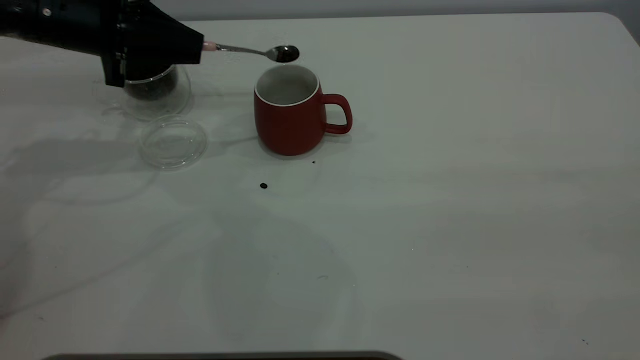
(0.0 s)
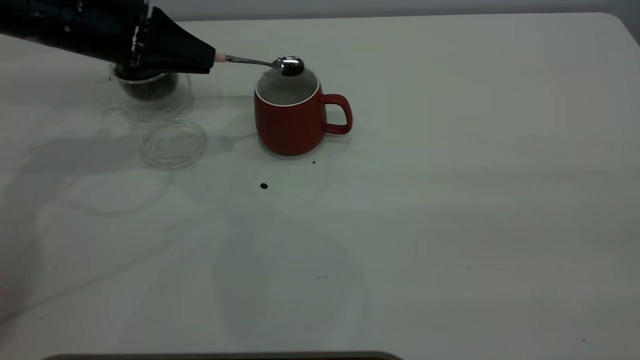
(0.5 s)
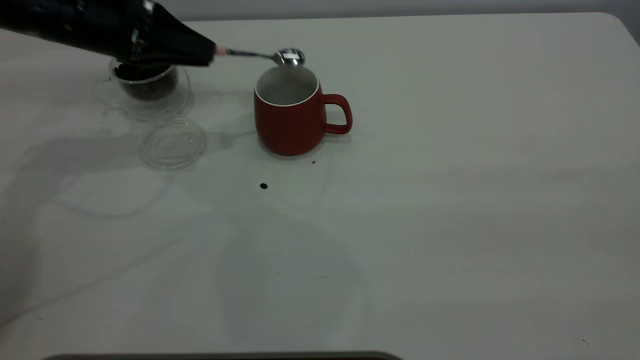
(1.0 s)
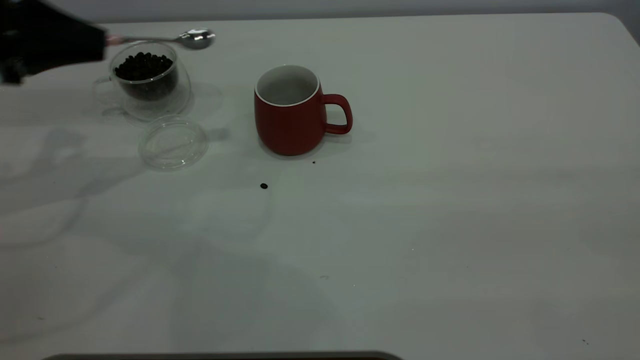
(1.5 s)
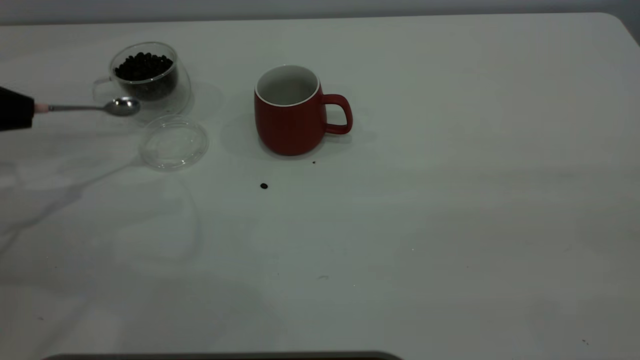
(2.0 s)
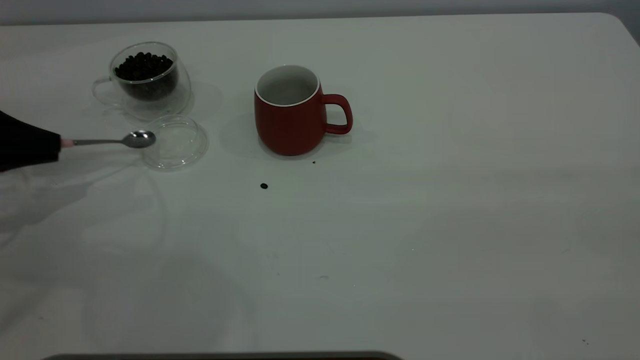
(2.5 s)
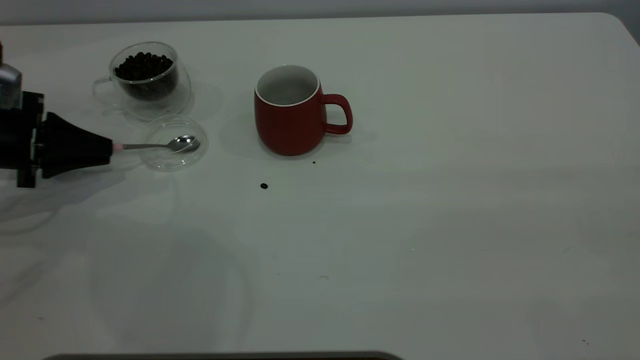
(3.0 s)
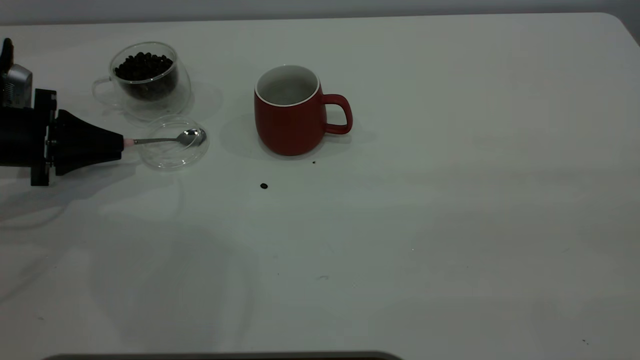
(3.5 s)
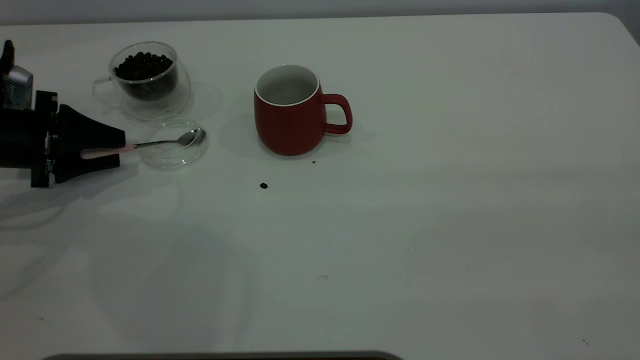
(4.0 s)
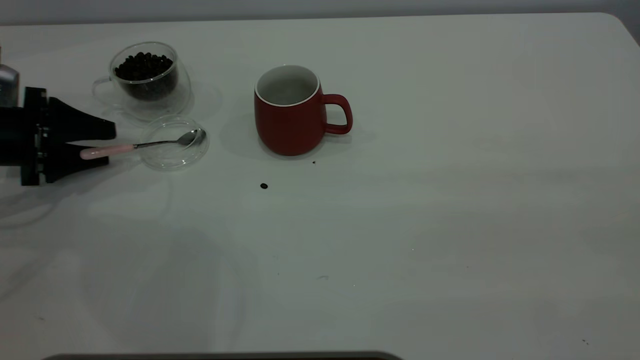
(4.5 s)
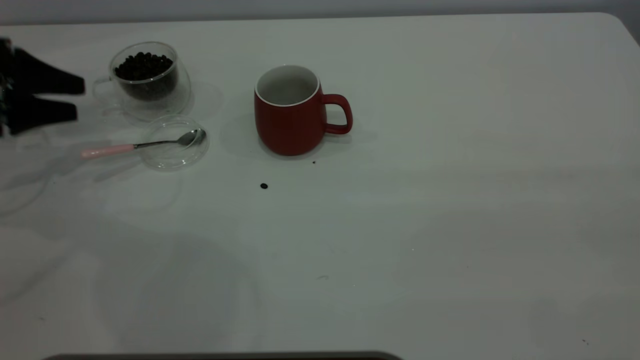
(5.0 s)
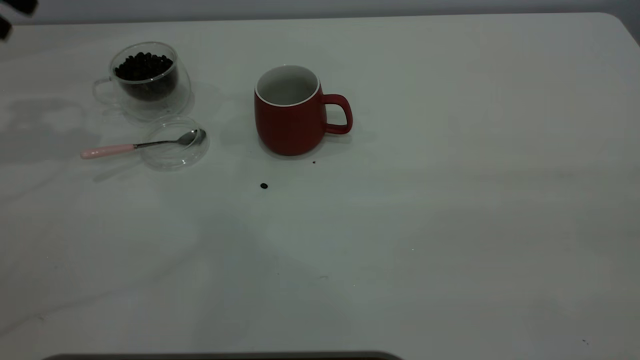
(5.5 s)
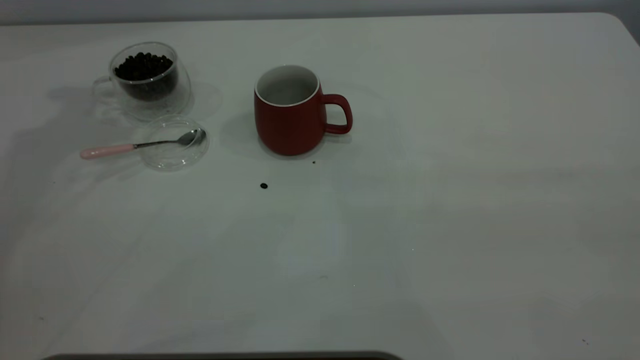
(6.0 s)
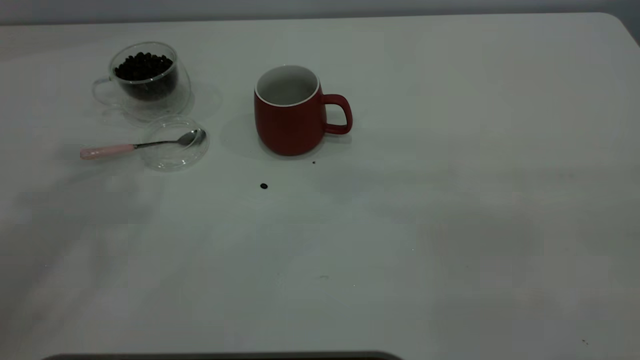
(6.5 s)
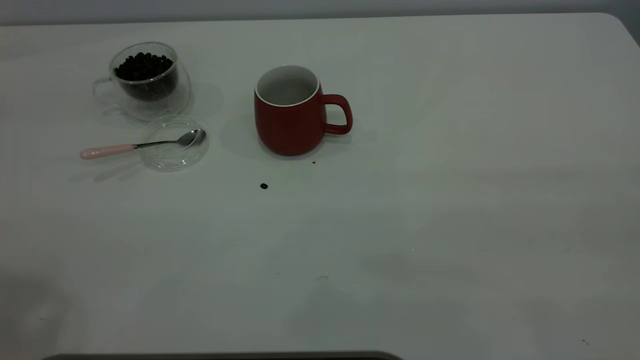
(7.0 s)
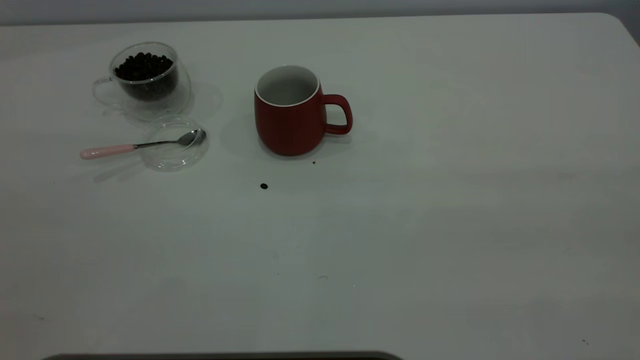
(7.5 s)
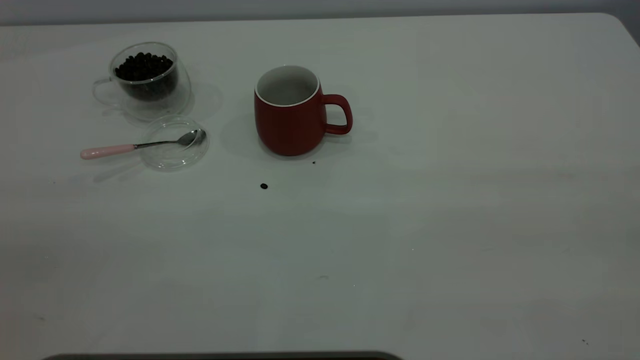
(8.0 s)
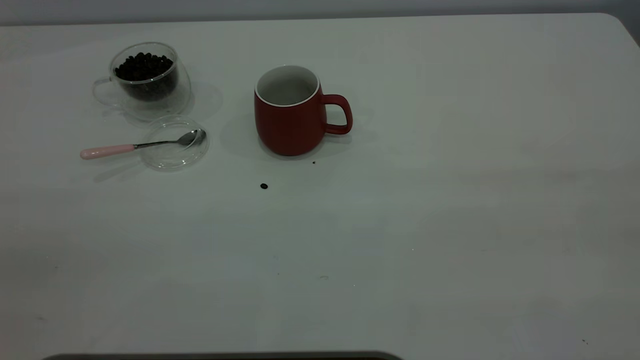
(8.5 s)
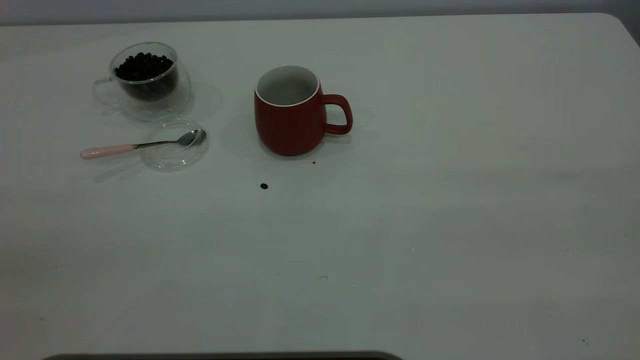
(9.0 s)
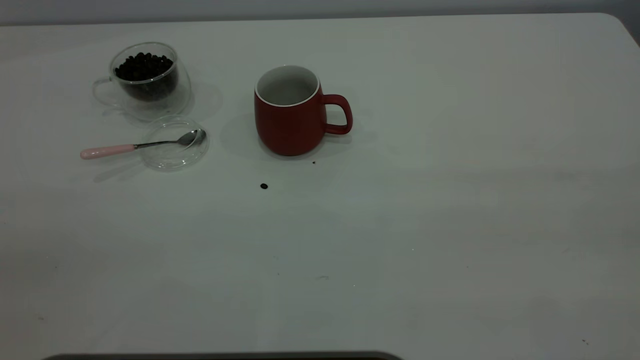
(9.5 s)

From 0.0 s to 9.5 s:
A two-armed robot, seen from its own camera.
Task of the whole recording: the right gripper place the red cup in the center of the table, the left gripper take the pink spoon from the cup lid and scoop out the coffee beans from the coffee cup and put them into the red cup, the left gripper put the spoon back into the cup lid.
Step, from 1.5 s to 5.0 s: Place the spoon back in its original place.
From 0.0 s to 2.0 s: The left gripper heads to the left and backward, covering about 20 cm.
From 2.0 s to 4.0 s: The left gripper goes some 10 cm downward, and opens its fingers.
From 4.0 s to 5.5 s: The left gripper goes some 25 cm upward.

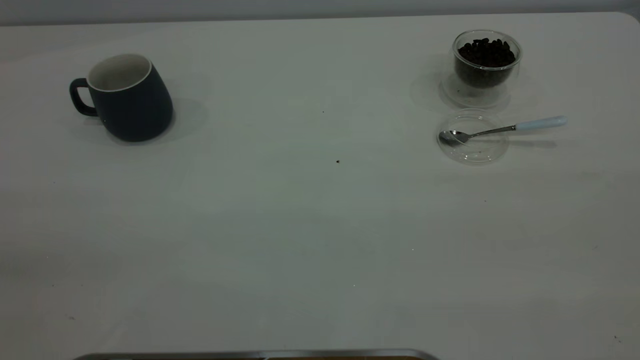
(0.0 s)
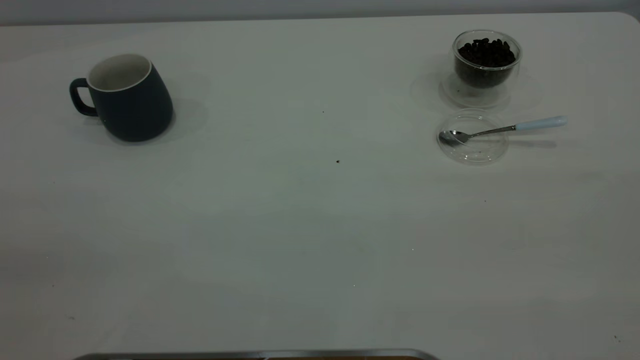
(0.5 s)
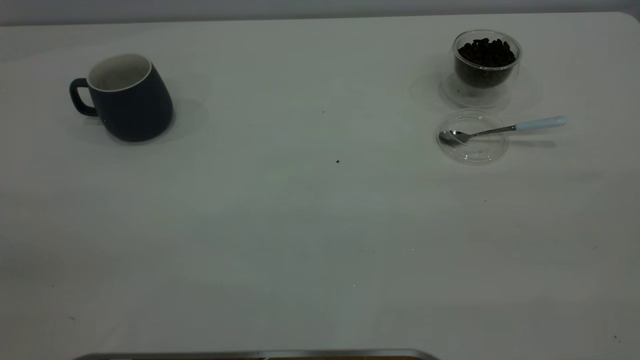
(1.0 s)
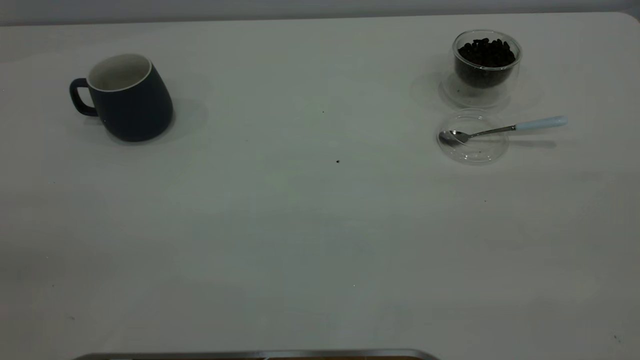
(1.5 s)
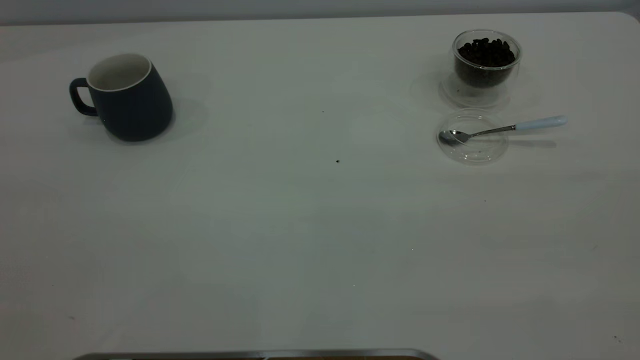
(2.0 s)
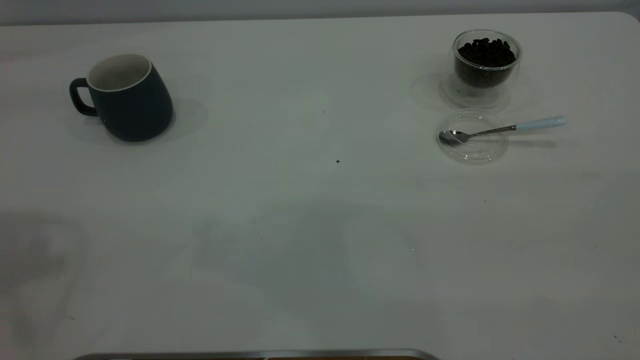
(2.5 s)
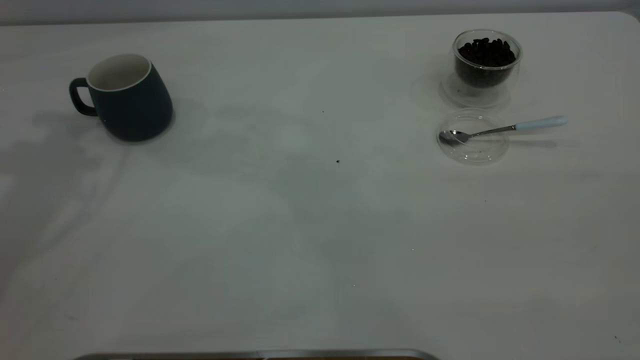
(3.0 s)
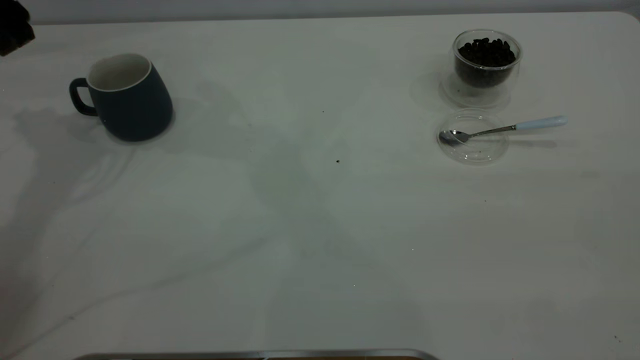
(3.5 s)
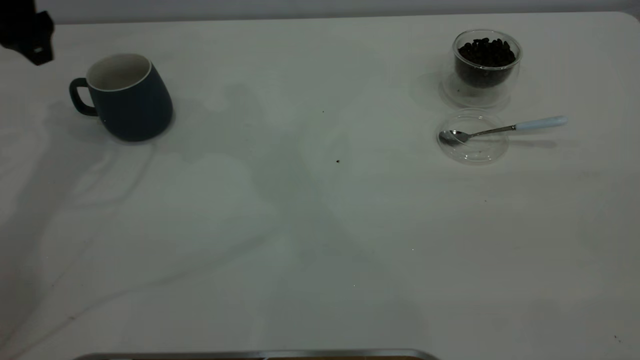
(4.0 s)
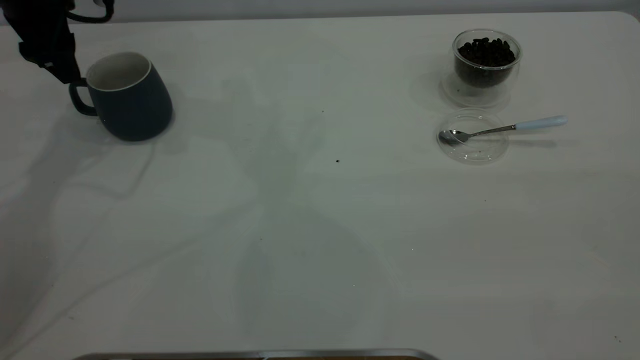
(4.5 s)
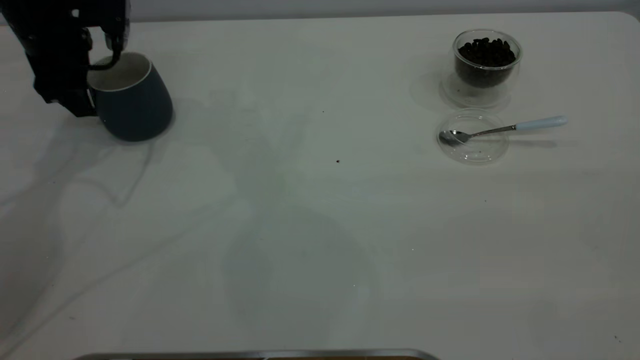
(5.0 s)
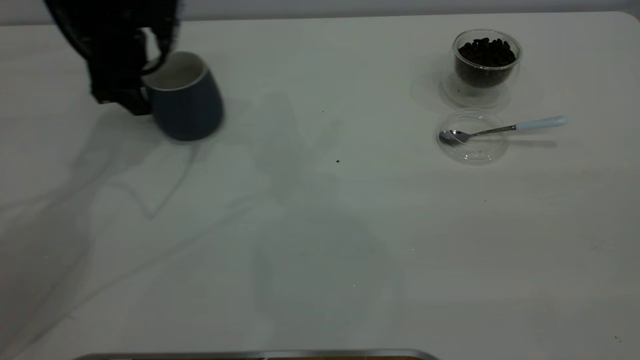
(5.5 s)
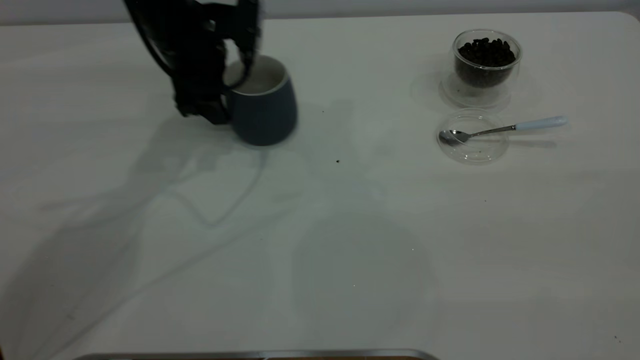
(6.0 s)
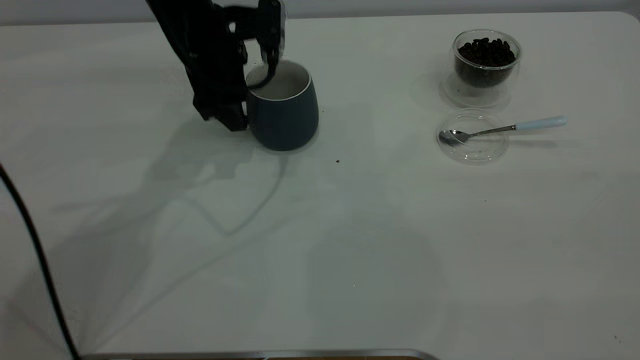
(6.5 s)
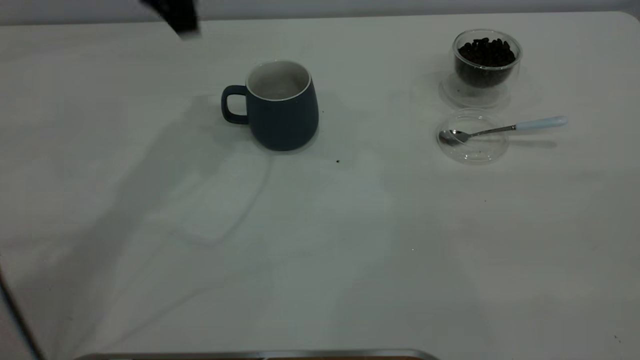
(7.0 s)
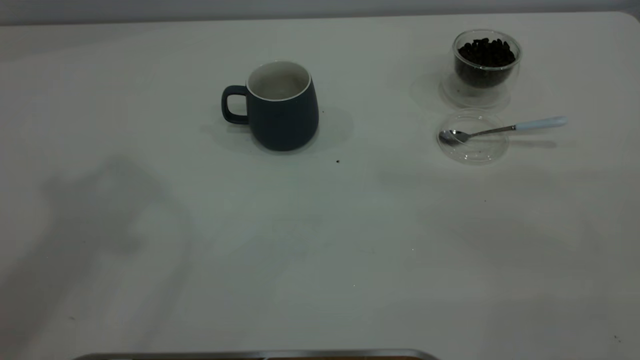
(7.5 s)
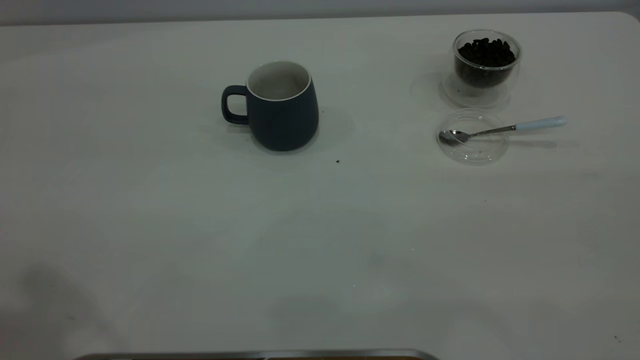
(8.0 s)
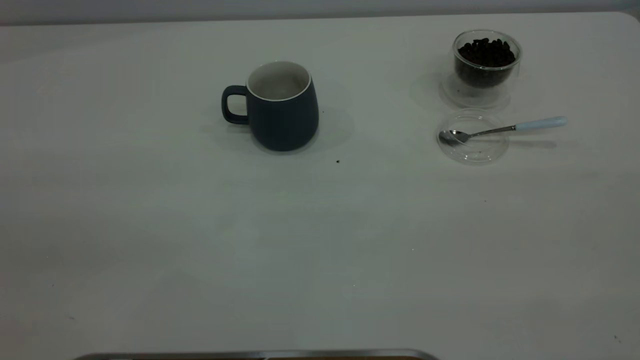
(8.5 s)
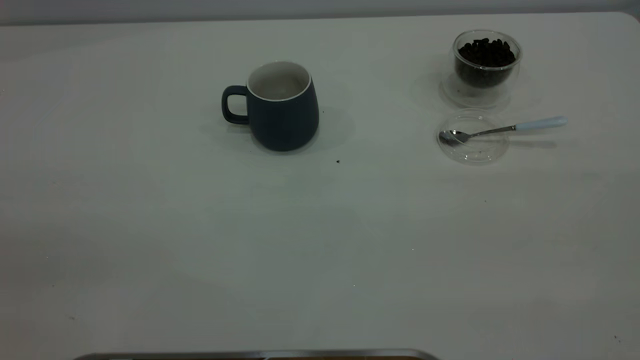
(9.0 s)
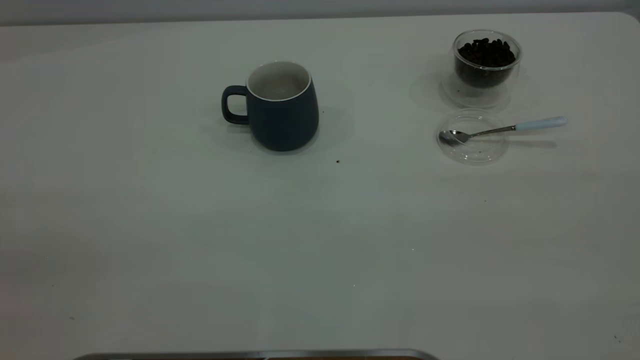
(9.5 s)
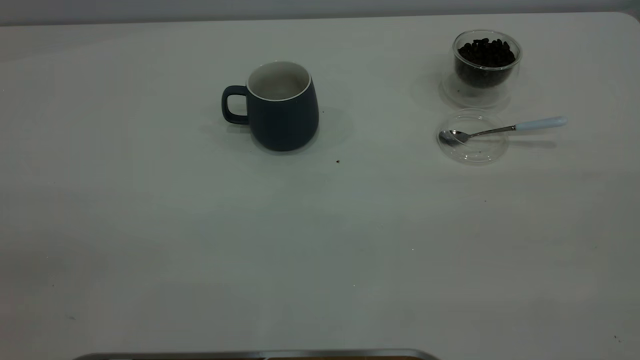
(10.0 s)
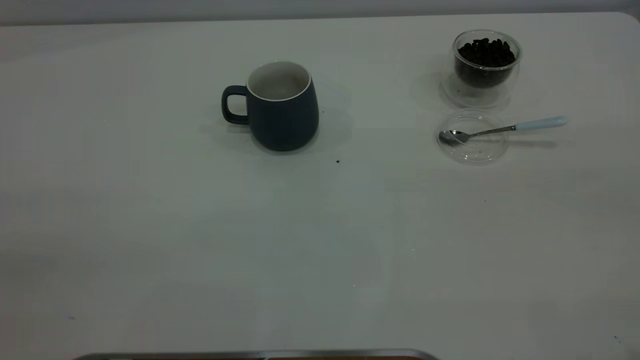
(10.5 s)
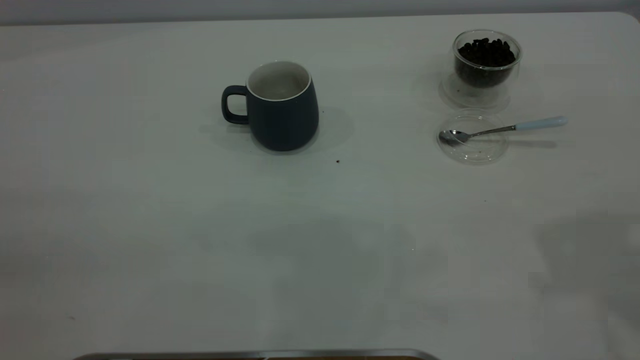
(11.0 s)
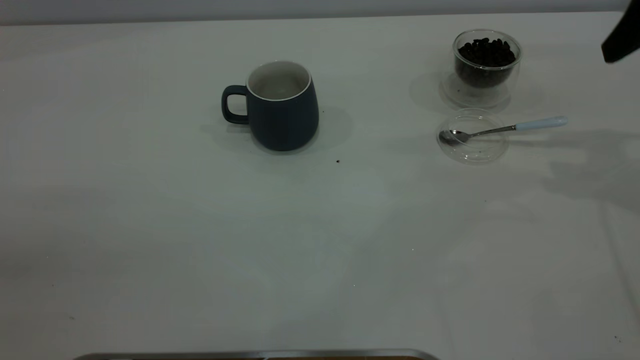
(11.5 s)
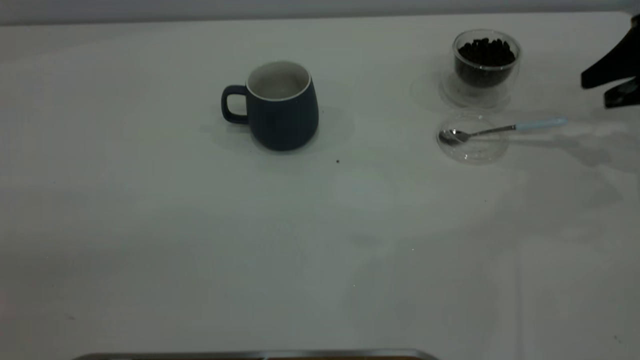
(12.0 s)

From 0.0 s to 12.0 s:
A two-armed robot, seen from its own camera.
Task of the whole recording: the left gripper place the grey cup in the center of the table, the right gripper take the blue spoon from the cup lid and scoop out the coffee beans from the coffee cup and put them into the grey cup, the right gripper put the spoon back into the cup lid.
Step, from 0.0 s to 6.5 s: Move the cup to the center of view.
From 2.0 s to 4.0 s: The left gripper travels forward and downward by about 40 cm, and opens up.
From 4.0 s to 6.0 s: The left gripper is displaced to the right and downward by some 20 cm.
From 6.0 s to 8.0 s: The left gripper is displaced backward and upward by approximately 40 cm.
From 10.0 s to 12.0 s: The right gripper shifts about 50 cm forward and downward, and opens up.
